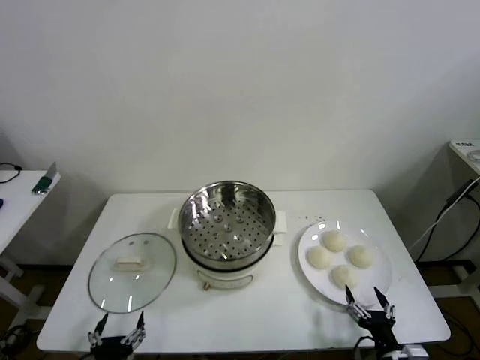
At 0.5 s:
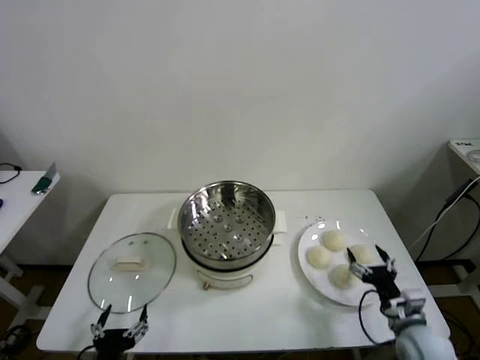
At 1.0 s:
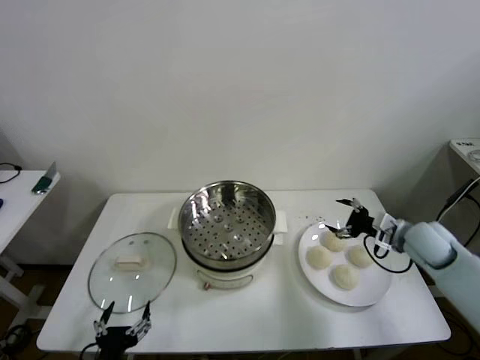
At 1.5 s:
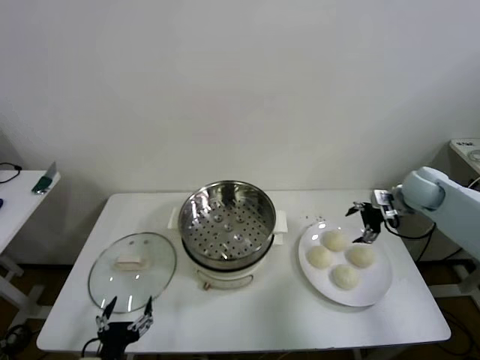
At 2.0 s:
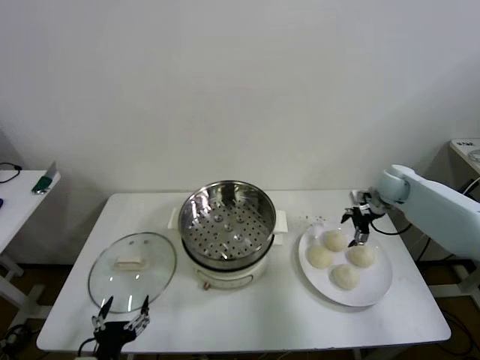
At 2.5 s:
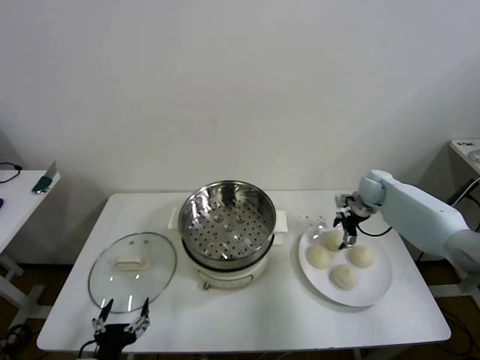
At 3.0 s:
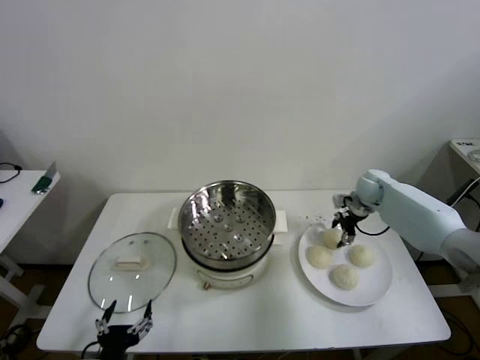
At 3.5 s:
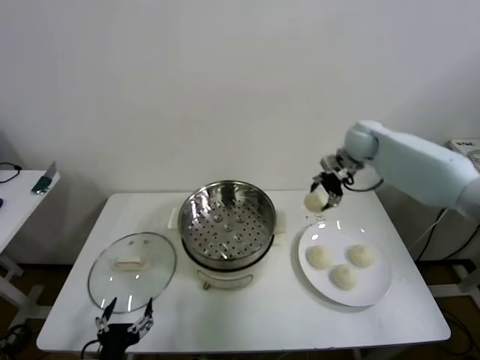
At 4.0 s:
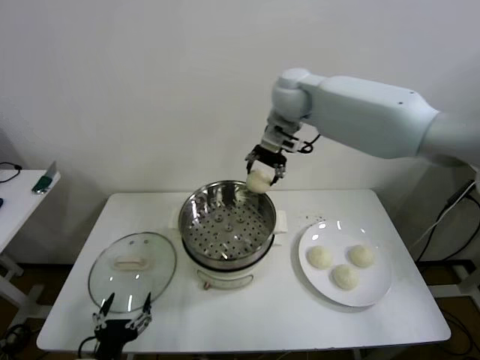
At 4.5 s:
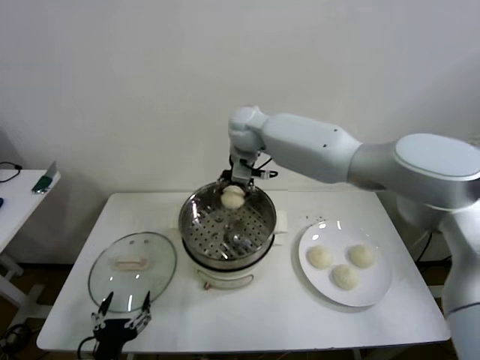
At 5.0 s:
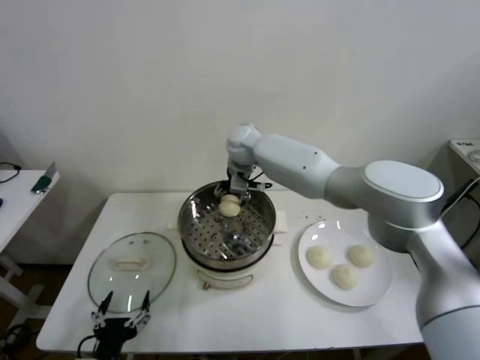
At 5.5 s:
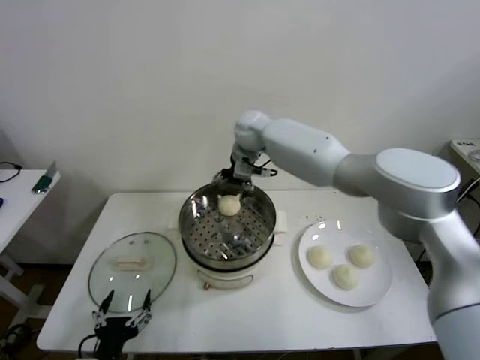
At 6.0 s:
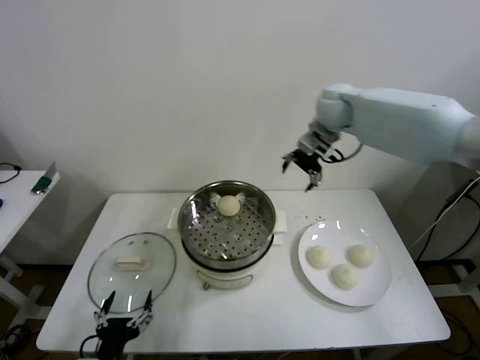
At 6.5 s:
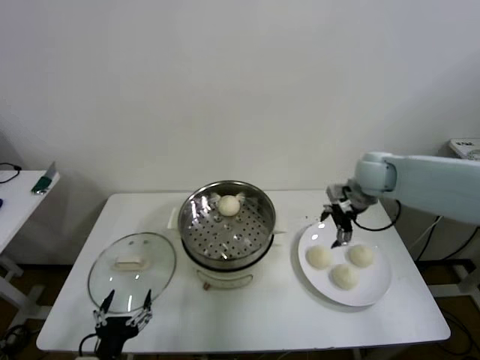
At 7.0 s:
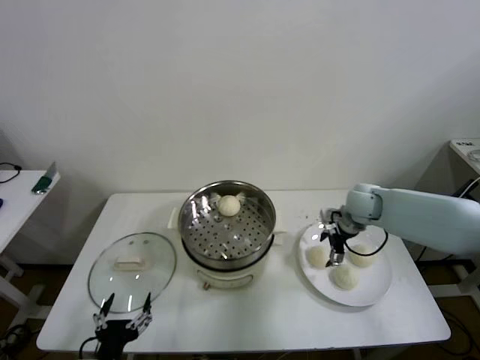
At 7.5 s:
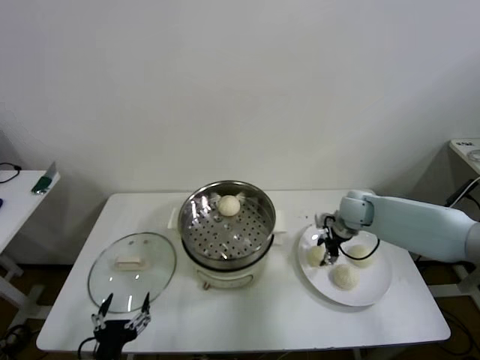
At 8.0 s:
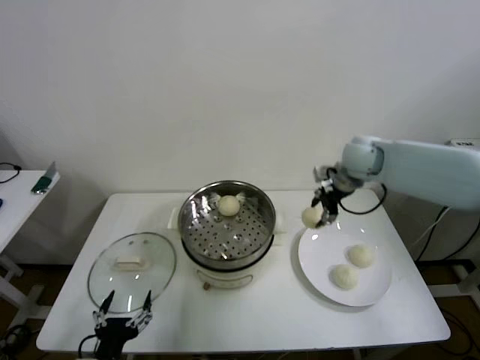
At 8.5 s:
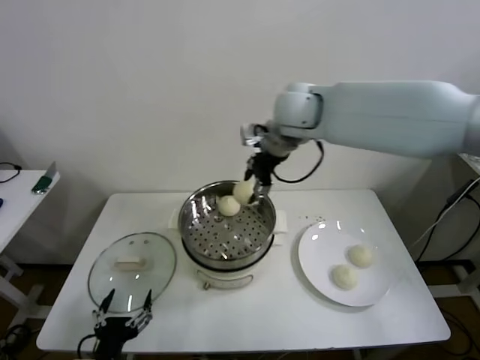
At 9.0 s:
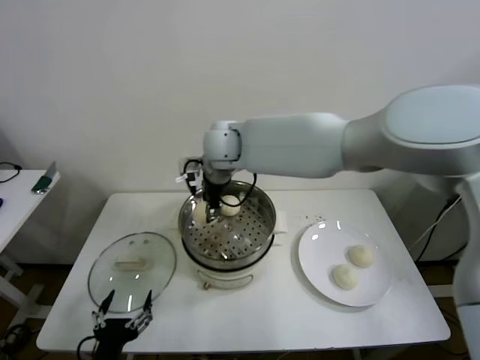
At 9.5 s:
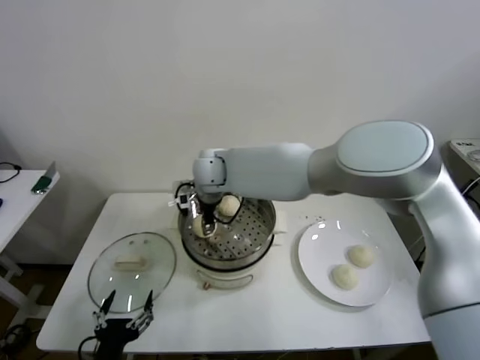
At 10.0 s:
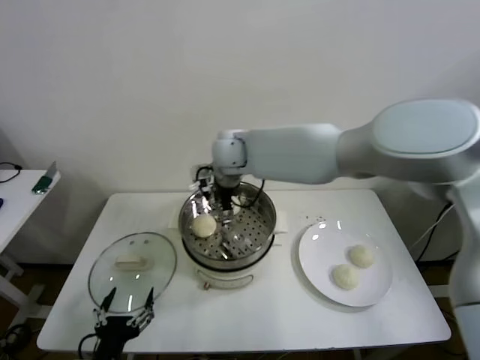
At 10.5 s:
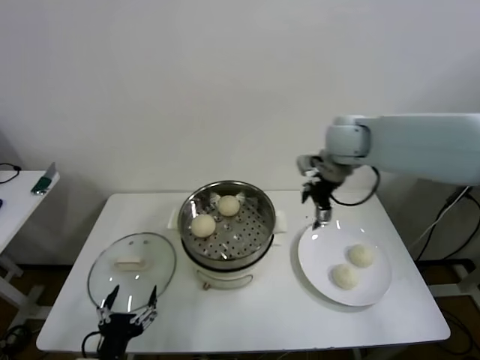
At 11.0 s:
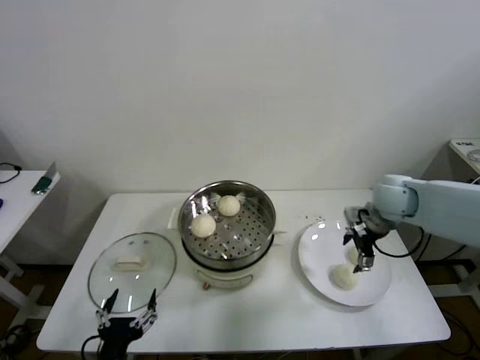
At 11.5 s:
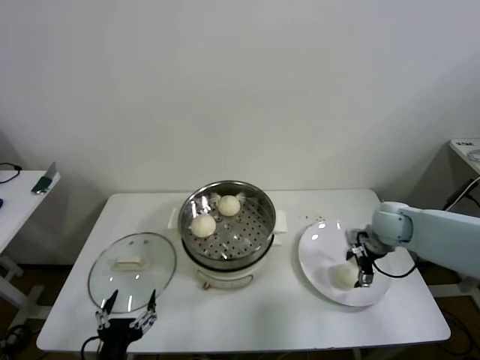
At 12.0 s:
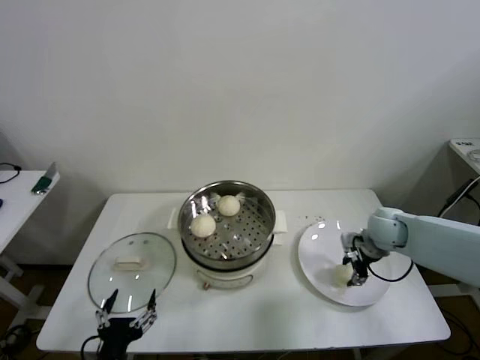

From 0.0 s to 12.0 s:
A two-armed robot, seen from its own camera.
Step, from 0.0 s to 2.5 s: Grasp the baozi in the plate with right gripper.
Step, from 3.0 s to 5.0 s: Place the baozi on the steamer with right gripper.
Step, from 5.5 s to 7.0 s: Grasp the baozi in the plate with right gripper.
Step, from 7.5 s to 9.5 s: Place the baozi on the steamer with right gripper.
Step, from 10.0 s to 11.5 s: Grasp the baozi in the plate with right gripper.
From 2.0 s to 4.0 s: The right gripper is displaced to the left and upward by roughly 40 cm, and closes up.
From 4.0 s to 6.0 s: The right gripper travels to the right by some 15 cm, and opens its fingers.
From 6.0 s to 8.0 s: The right gripper moves roughly 25 cm downward and comes back, and closes.
From 8.0 s to 10.0 s: The right gripper travels to the left by approximately 25 cm, and opens up.
From 10.0 s to 12.0 s: The right gripper travels to the right and downward by some 40 cm, and closes up.

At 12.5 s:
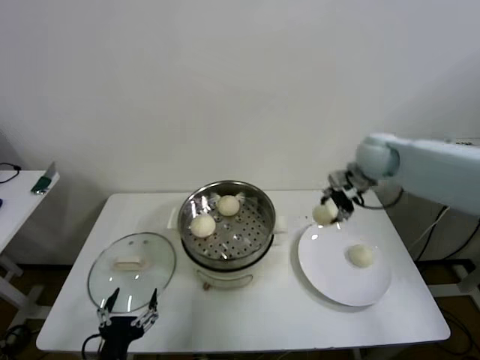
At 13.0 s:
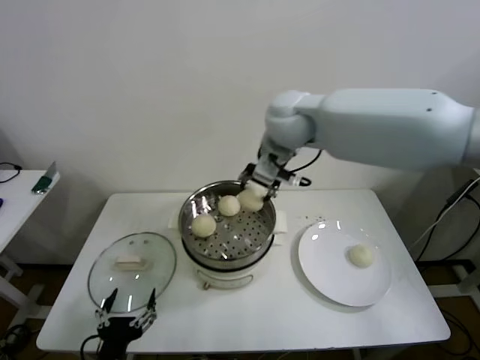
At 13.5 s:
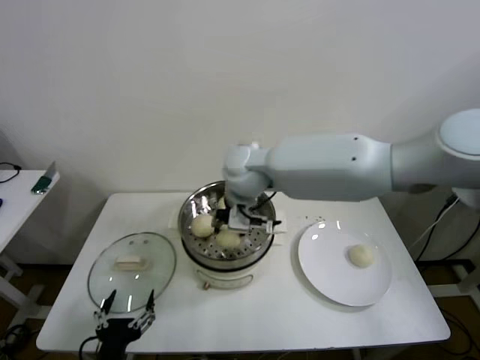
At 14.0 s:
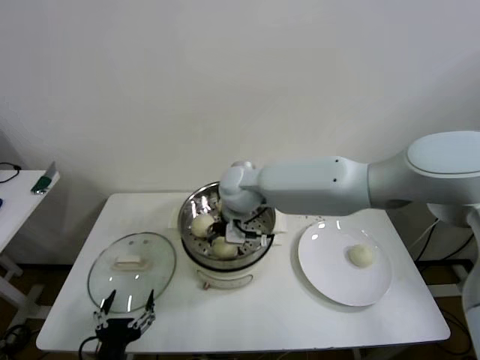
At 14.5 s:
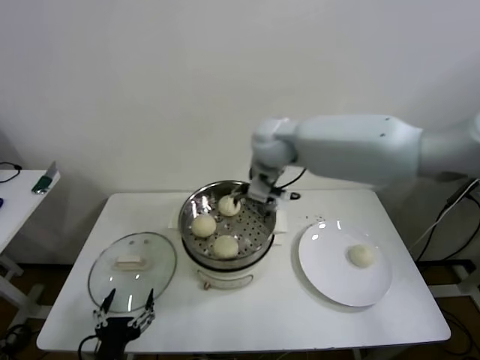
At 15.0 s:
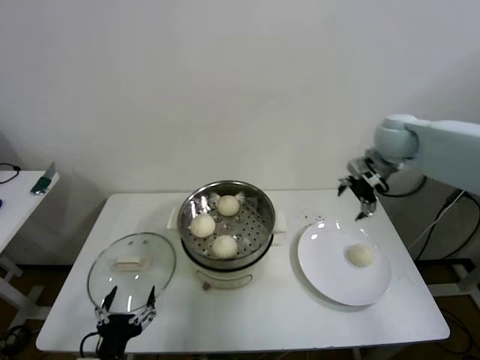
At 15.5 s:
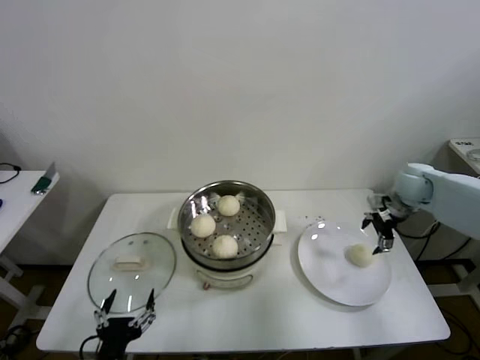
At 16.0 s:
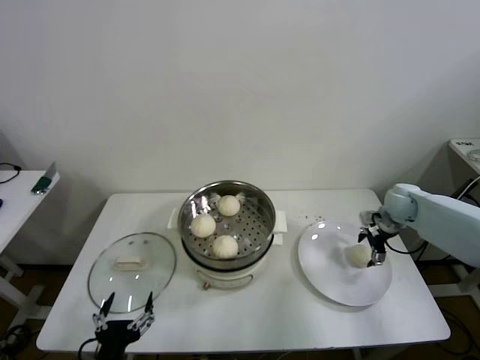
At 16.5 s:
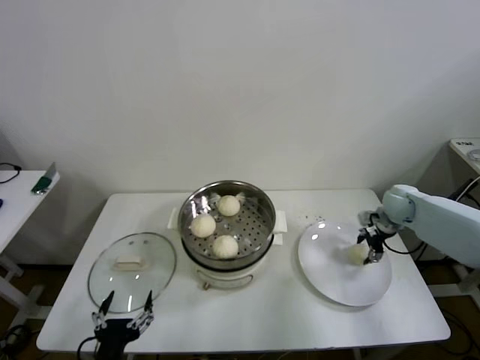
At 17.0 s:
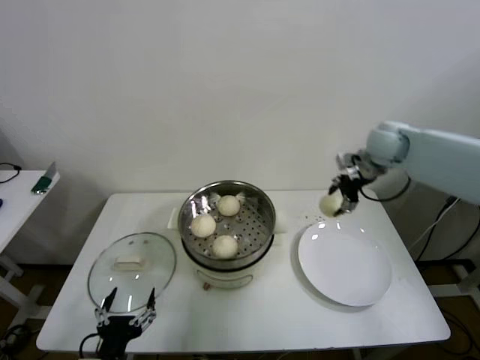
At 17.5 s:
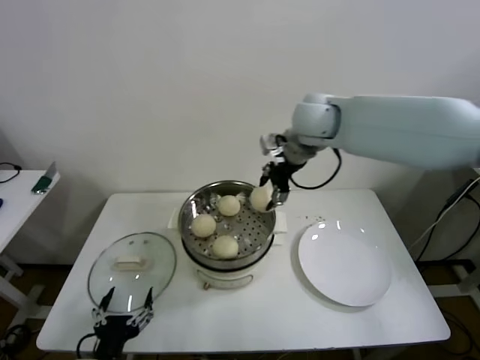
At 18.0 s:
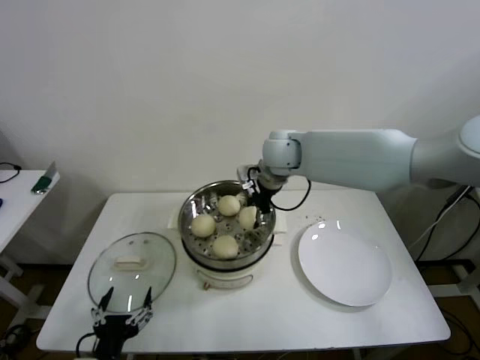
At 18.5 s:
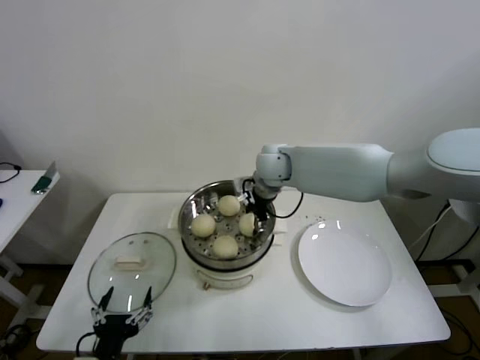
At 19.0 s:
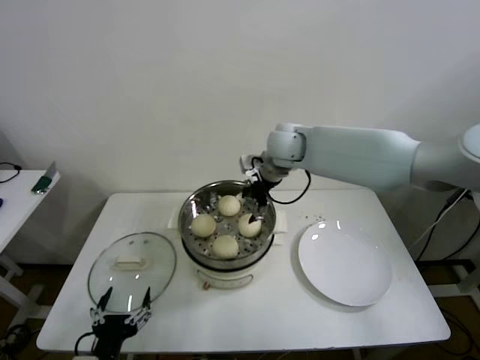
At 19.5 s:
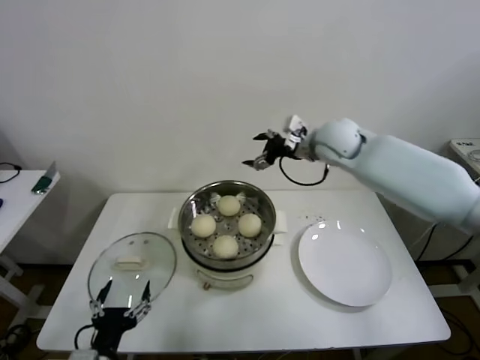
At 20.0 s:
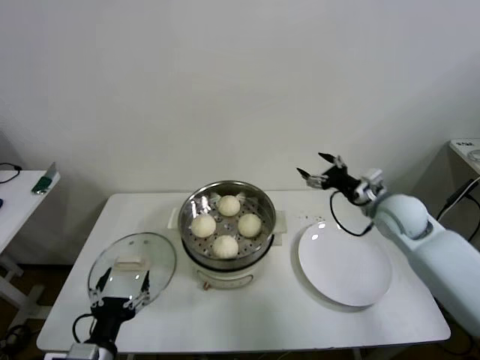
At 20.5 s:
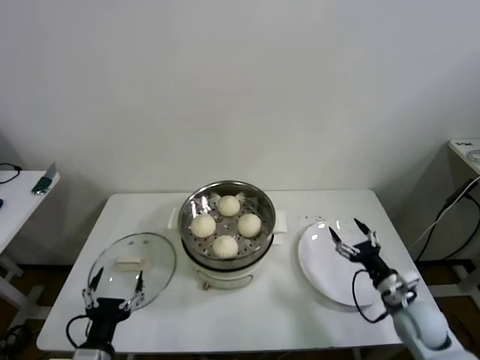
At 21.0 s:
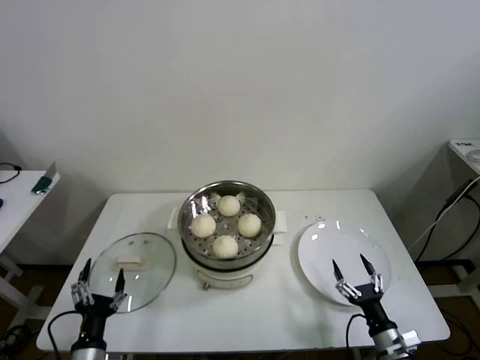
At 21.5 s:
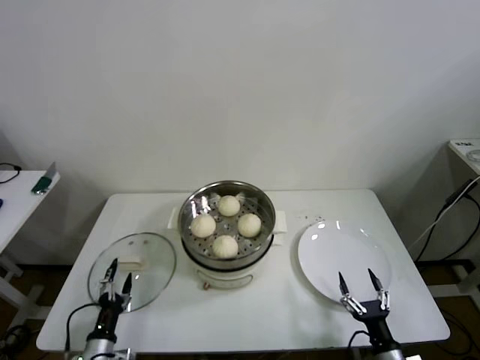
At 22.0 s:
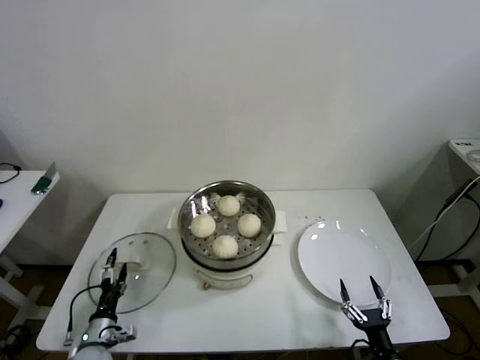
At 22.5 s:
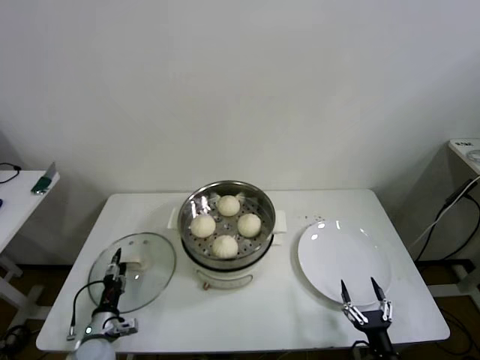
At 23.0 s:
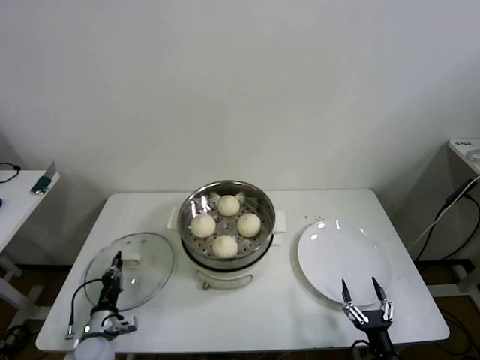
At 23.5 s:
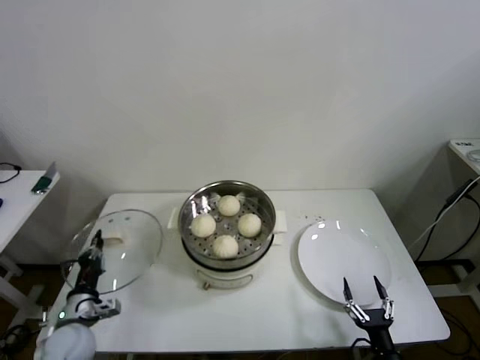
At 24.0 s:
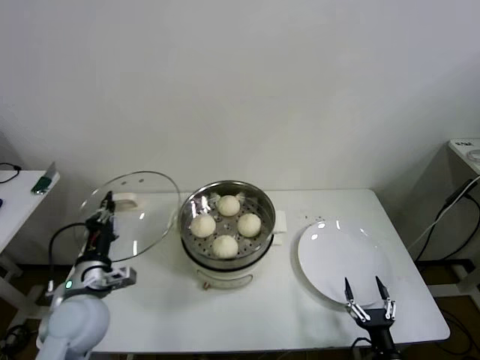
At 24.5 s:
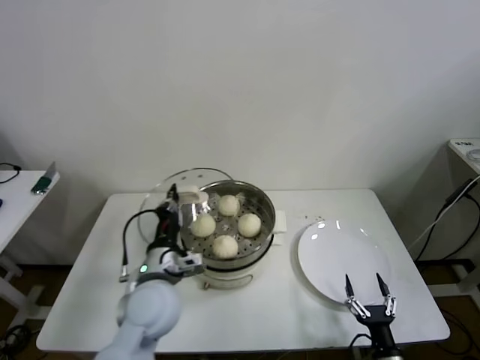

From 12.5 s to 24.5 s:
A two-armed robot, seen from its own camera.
Step, from 12.5 s to 14.0 s: Place the baozi on the steamer with right gripper.
Step, from 14.5 s to 16.0 s: Grasp the baozi in the plate with right gripper.
Step, from 16.5 s to 18.5 s: Place the baozi on the steamer with right gripper.
Step, from 19.0 s to 22.5 s: Grasp the pot lid with left gripper.
From 12.5 s to 14.5 s: The right gripper shifts approximately 20 cm to the left, and opens up.
From 14.5 s to 16.5 s: The right gripper goes some 40 cm to the right and downward, and closes its fingers.
From 16.5 s to 18.5 s: The right gripper travels to the left by about 35 cm.
From 18.5 s to 20.5 s: The right gripper travels to the right, backward and downward by some 50 cm, and opens its fingers.
From 20.5 s to 22.5 s: The left gripper heads downward, forward and to the left, covering about 20 cm, and closes. The right gripper is displaced backward and downward by approximately 20 cm.
From 22.5 s to 24.5 s: The left gripper heads upward and to the right, covering some 30 cm, and closes up.

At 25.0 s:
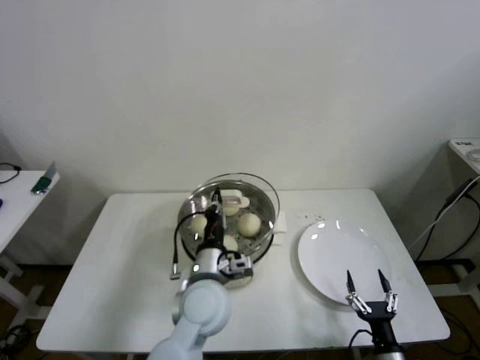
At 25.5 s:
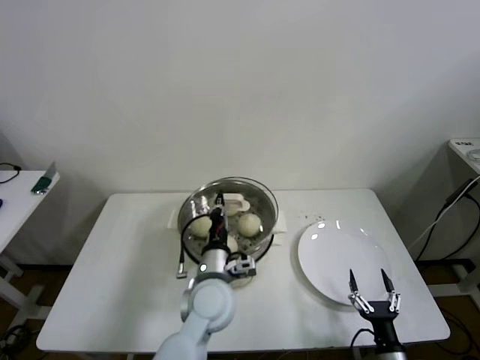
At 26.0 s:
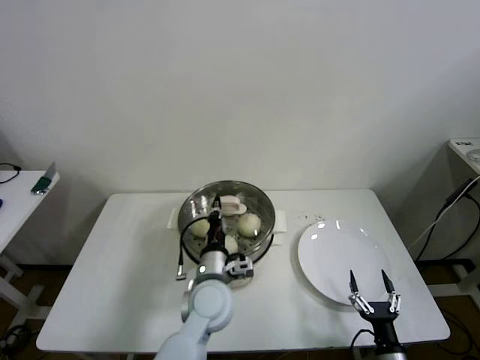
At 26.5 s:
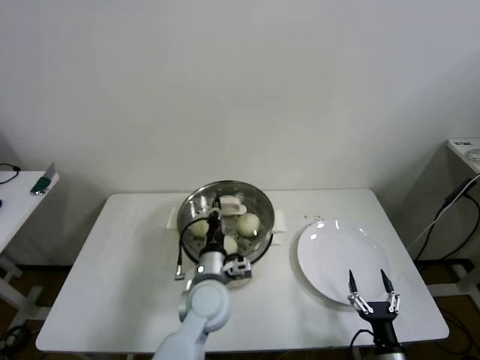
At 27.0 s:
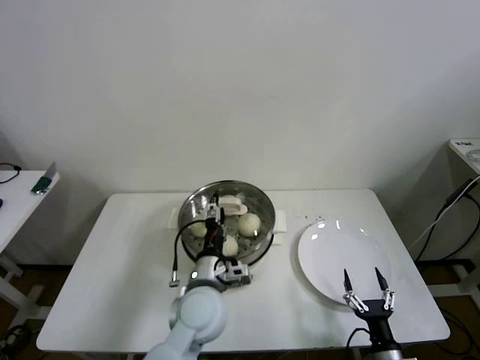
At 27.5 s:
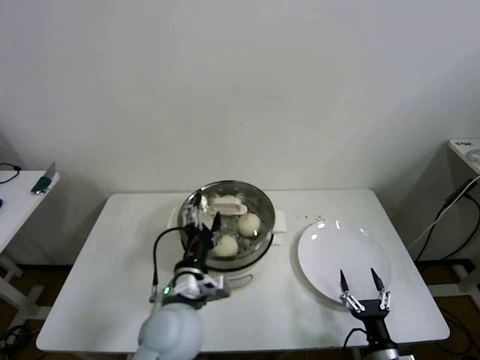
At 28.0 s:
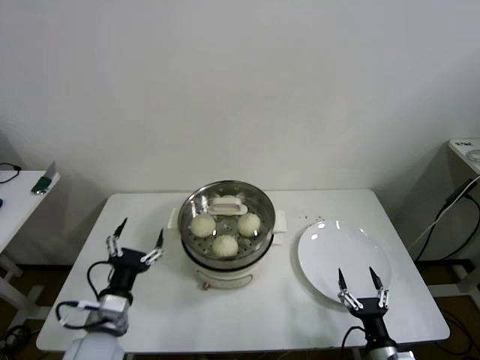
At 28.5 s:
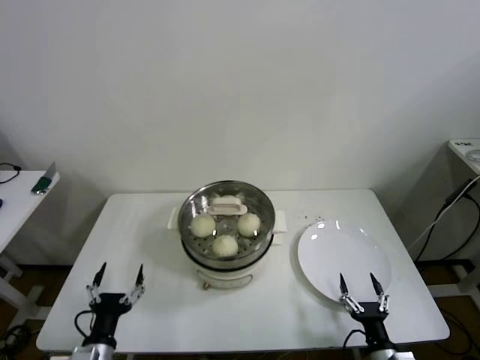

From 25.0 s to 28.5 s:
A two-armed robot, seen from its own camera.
From 25.0 s to 27.0 s: The left gripper opens its fingers.
From 27.0 s to 28.5 s: The left gripper shifts about 25 cm to the left and backward, and opens its fingers.
